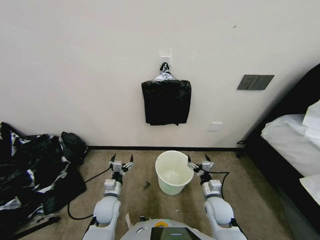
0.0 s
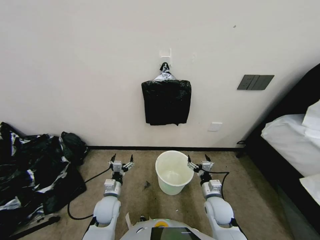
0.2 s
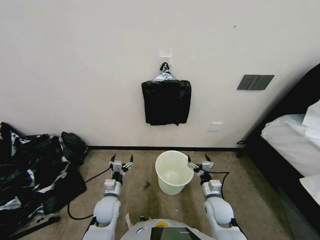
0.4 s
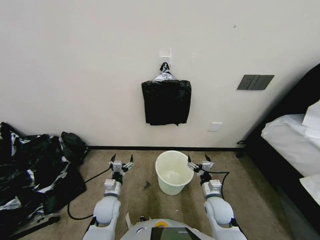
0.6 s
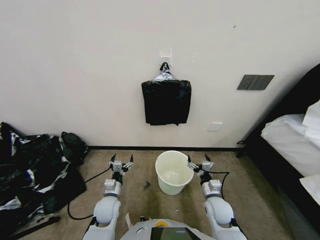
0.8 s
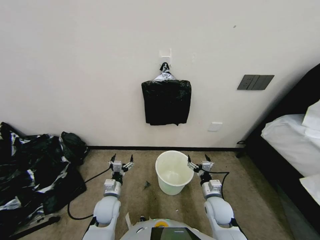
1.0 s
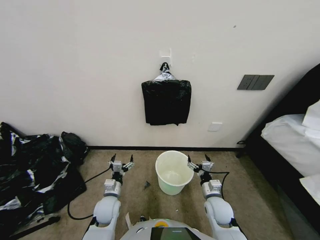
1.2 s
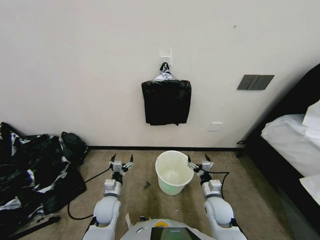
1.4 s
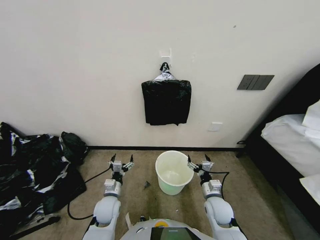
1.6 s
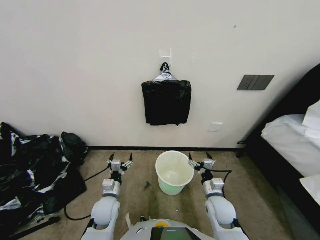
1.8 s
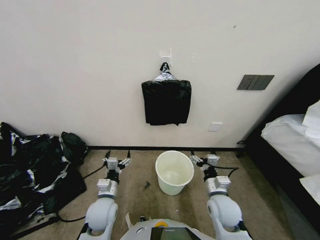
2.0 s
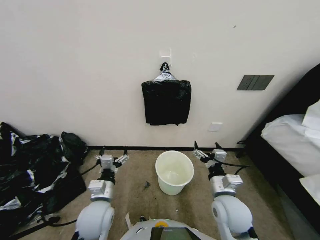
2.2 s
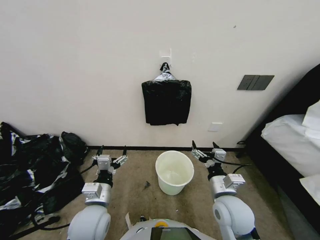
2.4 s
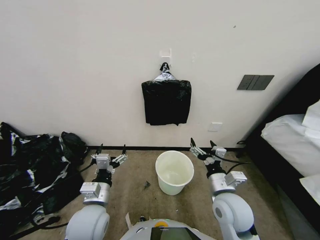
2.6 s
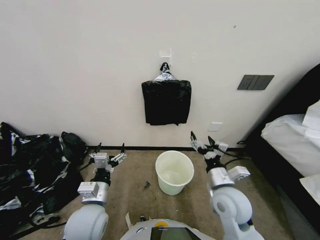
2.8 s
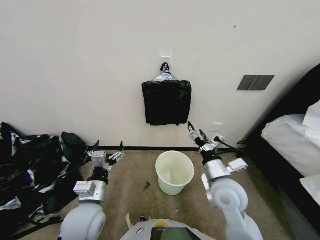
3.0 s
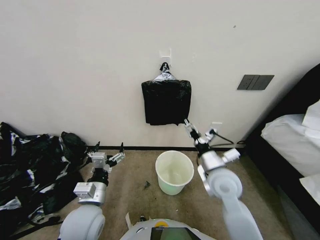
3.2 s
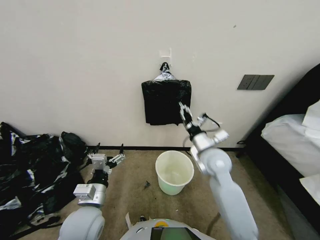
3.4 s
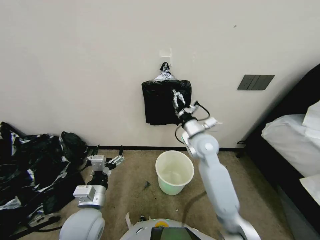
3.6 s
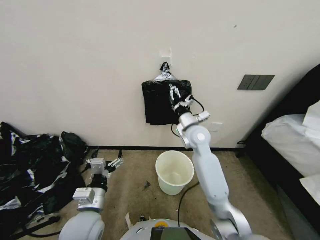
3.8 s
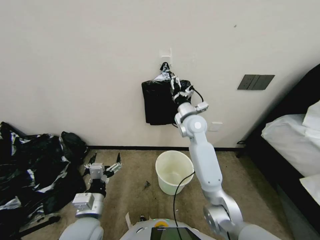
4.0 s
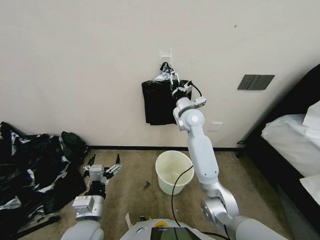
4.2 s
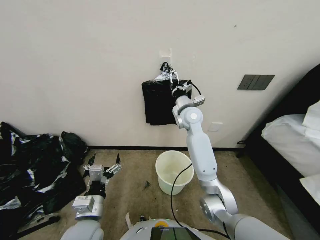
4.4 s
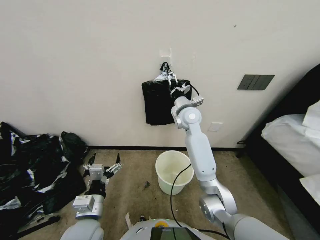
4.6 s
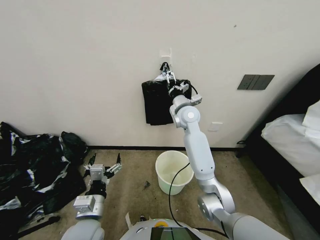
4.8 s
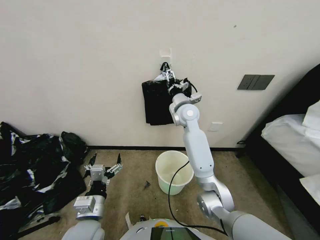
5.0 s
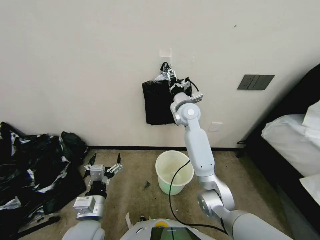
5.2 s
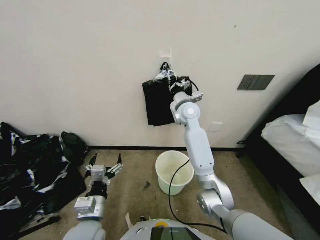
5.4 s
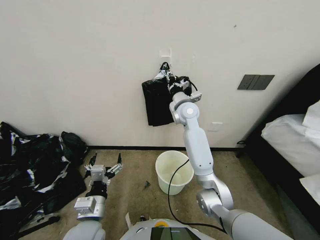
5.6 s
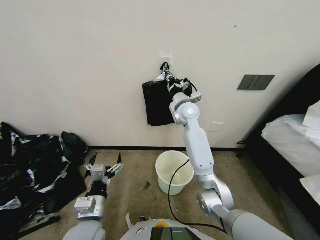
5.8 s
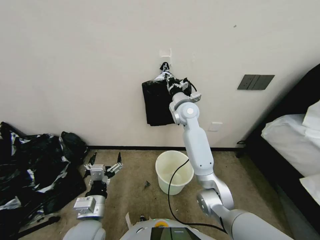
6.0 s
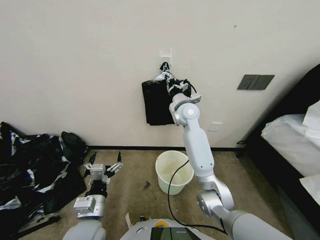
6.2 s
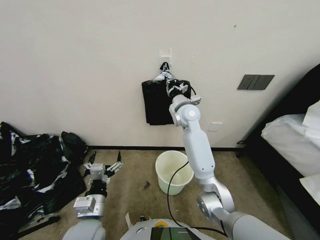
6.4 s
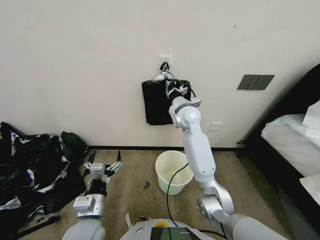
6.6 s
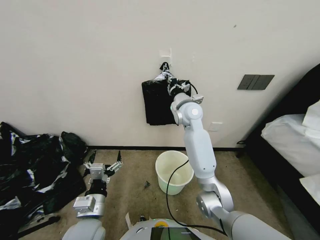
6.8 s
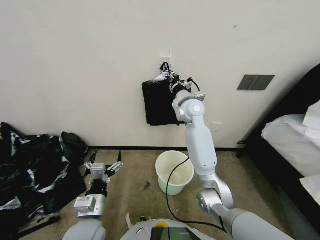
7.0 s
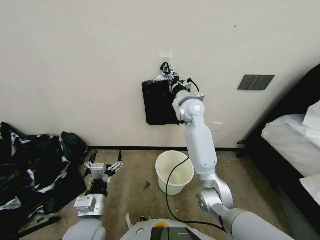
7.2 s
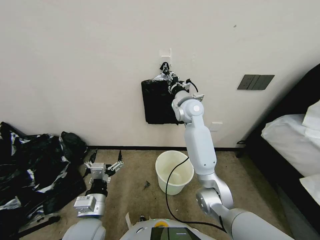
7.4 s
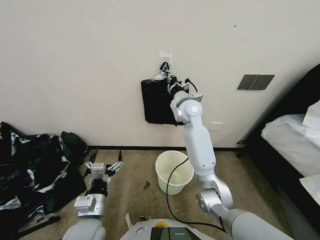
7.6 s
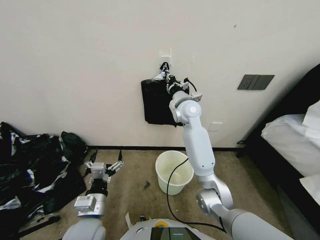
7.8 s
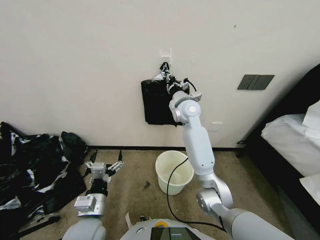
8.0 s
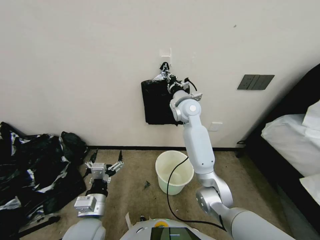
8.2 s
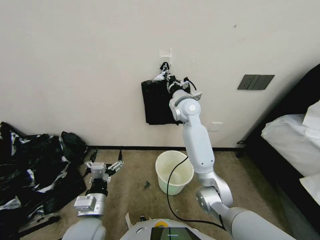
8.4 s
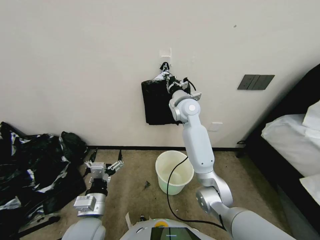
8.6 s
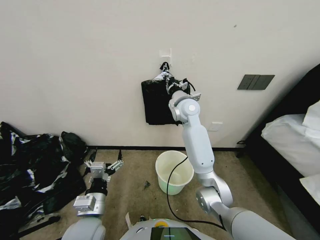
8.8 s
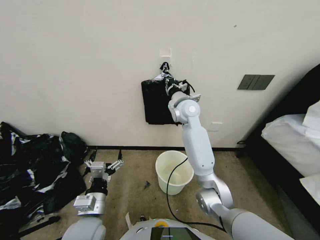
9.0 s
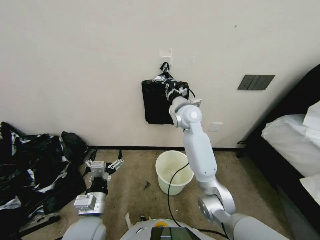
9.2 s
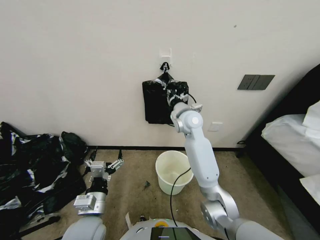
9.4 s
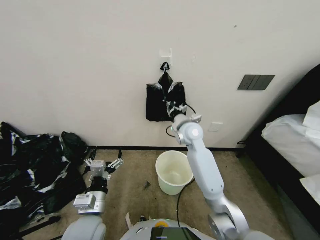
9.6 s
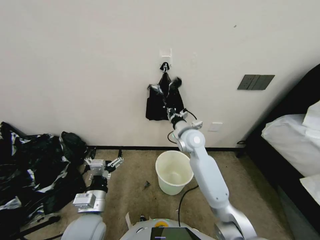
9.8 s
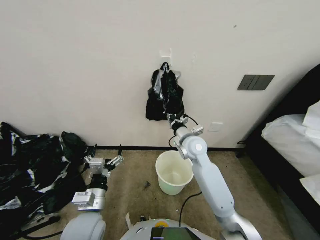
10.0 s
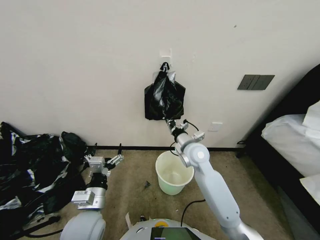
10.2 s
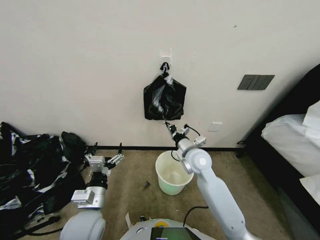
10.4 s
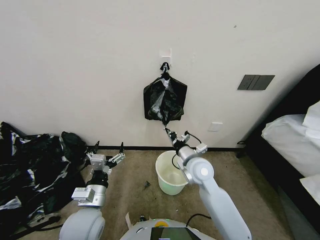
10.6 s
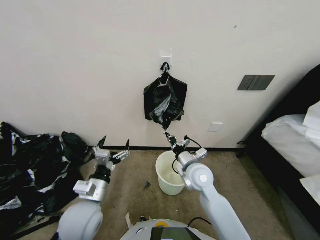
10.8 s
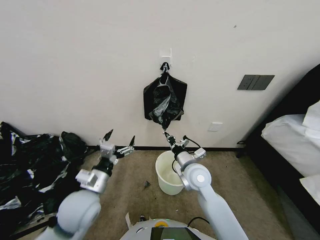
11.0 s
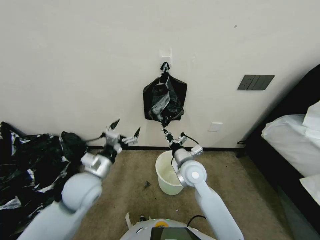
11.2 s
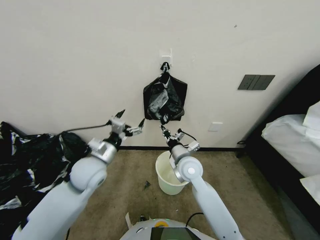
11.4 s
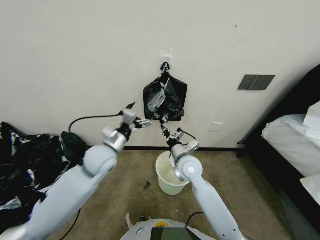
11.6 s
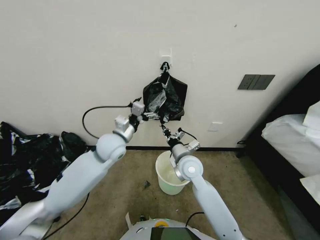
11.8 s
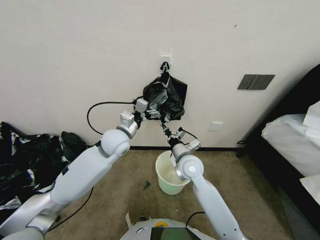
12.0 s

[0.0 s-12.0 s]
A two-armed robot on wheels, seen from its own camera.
Task of the whole recording: Place a trash bag onto the trash bin.
1.6 to 3.0 s: The grippers both shift upward by about 15 cm.
3.0 to 4.4 s: The right gripper heads forward and upward, covering approximately 30 cm.
4.4 to 6.0 s: The right gripper closes.
6.0 to 7.6 s: The grippers move only a little.
7.6 to 9.0 s: Both grippers stay about where they are.
9.0 to 10.4 s: The right gripper heads backward and downward, covering roughly 20 cm.
10.4 to 12.0 s: The left gripper goes approximately 25 cm forward and upward.

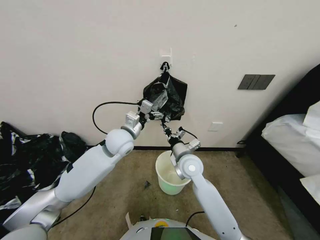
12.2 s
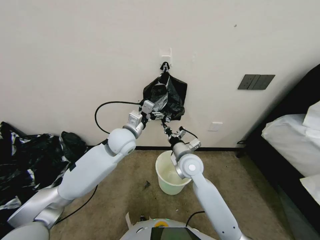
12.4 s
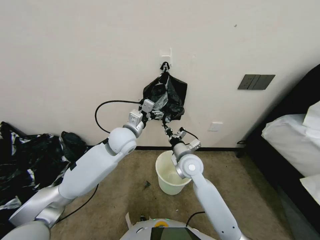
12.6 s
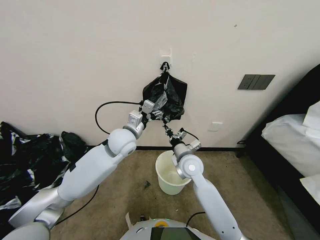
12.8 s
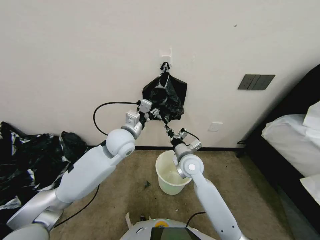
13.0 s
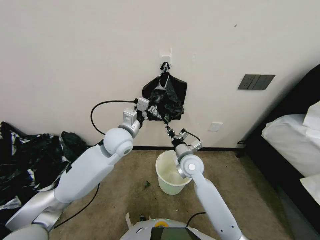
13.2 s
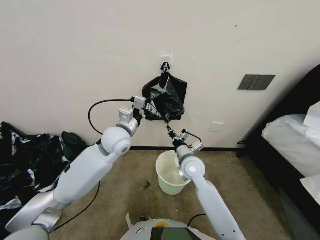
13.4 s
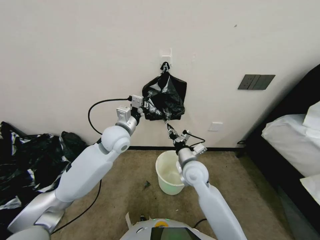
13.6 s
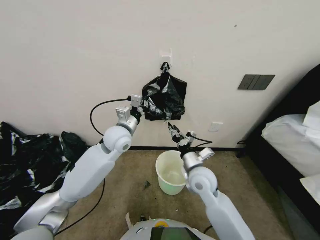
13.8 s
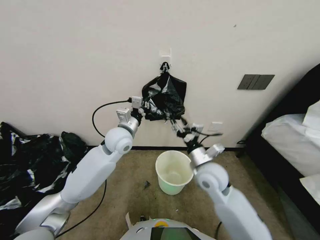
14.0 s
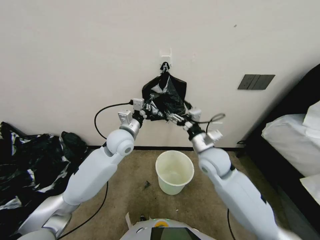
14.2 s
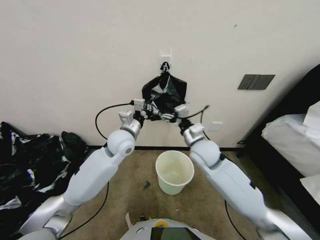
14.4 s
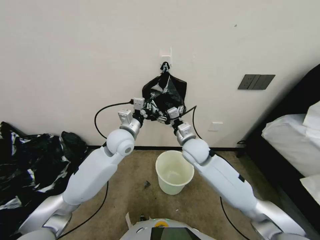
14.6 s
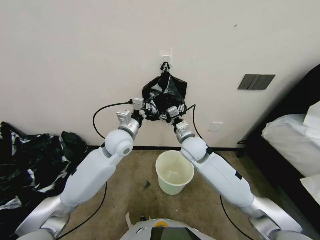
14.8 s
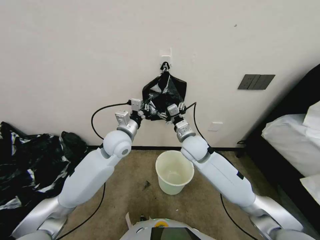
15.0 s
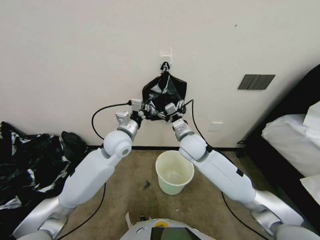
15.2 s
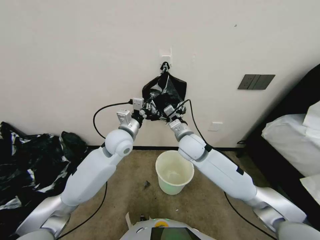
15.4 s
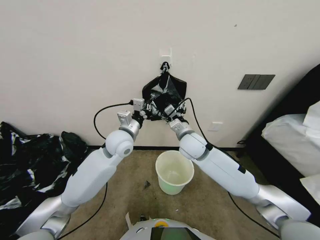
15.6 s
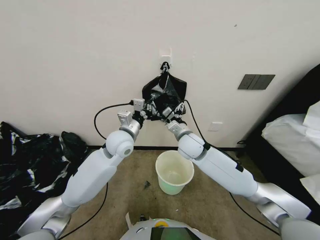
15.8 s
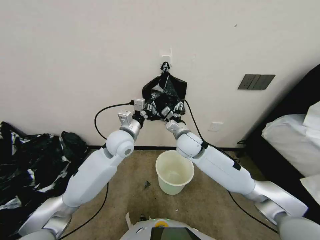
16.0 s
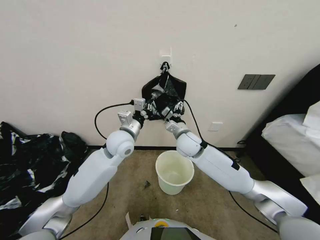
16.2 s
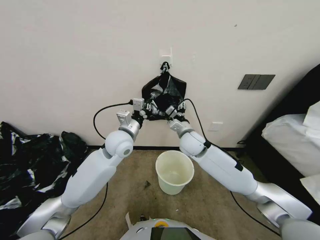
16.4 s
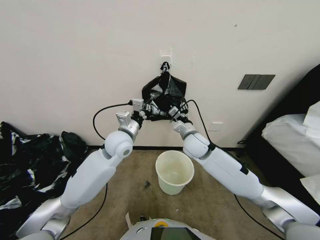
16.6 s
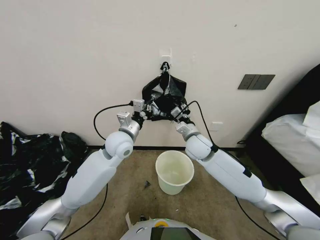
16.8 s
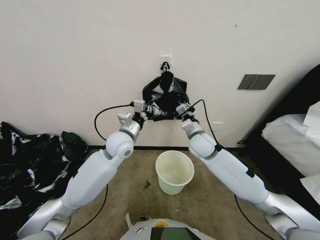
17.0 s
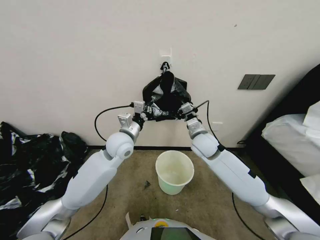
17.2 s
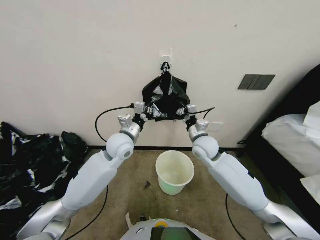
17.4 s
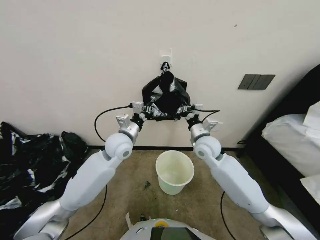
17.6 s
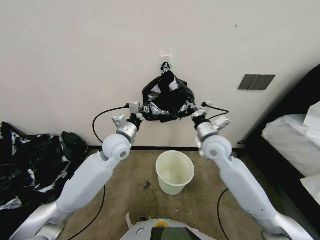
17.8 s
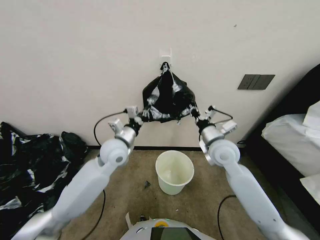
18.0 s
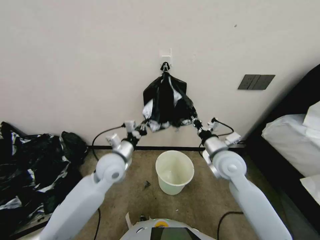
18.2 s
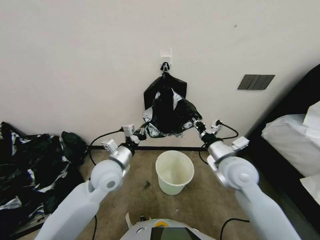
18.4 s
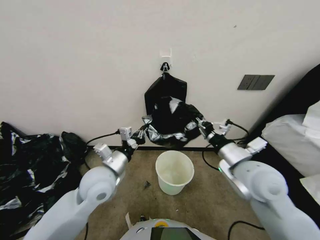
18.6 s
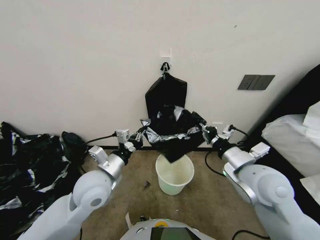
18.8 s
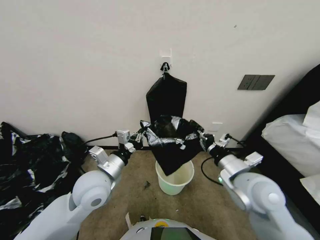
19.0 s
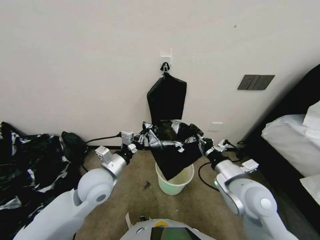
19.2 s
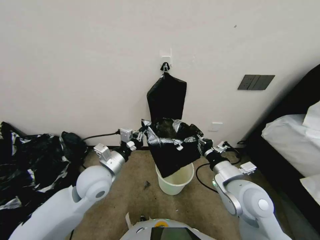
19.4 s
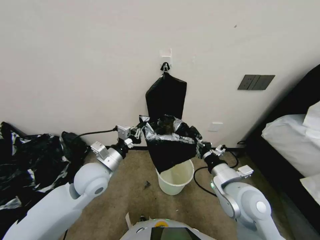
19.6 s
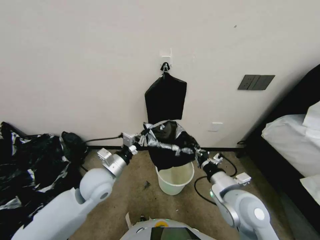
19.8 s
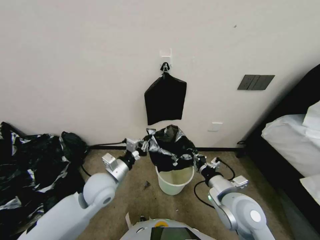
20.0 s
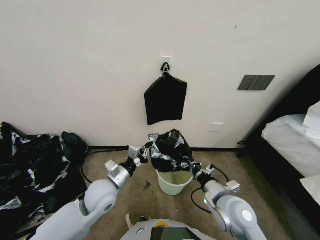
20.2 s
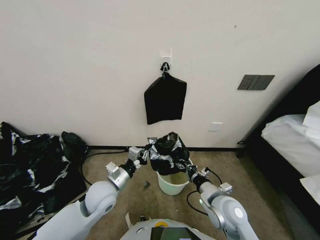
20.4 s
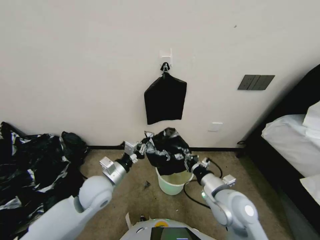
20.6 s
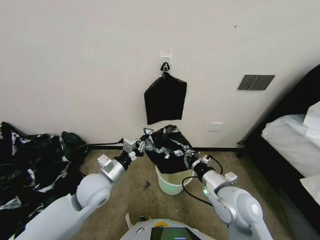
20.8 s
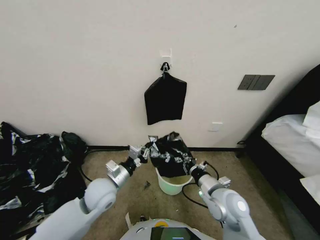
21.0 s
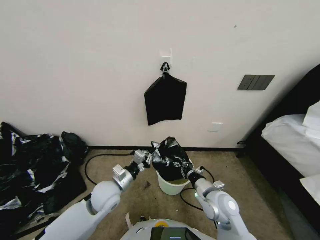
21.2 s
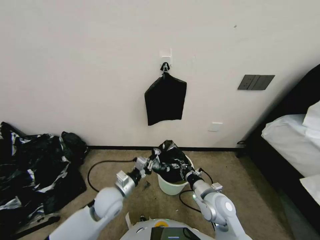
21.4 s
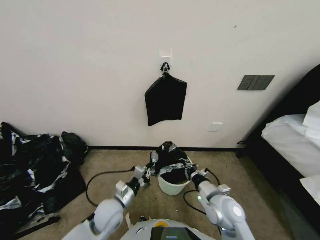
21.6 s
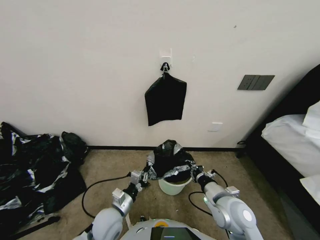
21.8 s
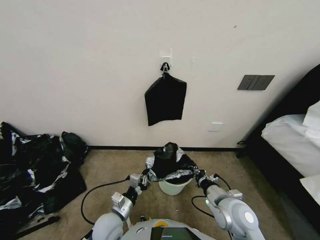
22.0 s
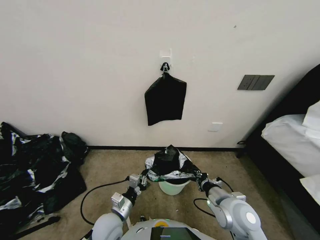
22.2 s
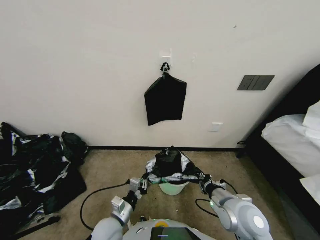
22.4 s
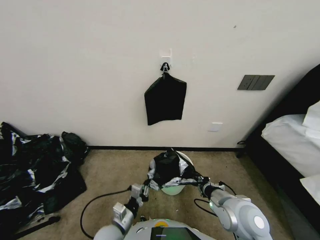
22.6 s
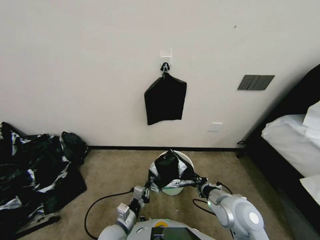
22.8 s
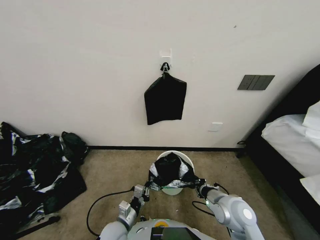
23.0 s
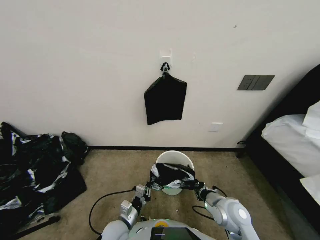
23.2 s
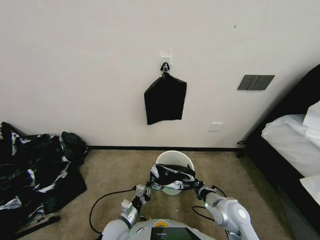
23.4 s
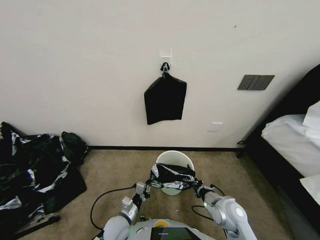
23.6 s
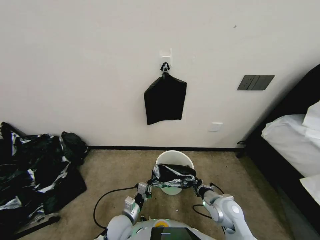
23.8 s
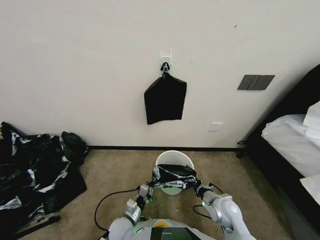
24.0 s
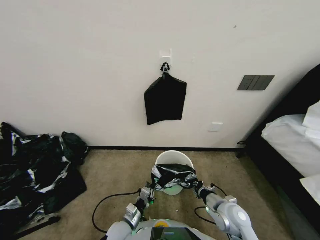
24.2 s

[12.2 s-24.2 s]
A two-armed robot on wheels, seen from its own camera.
Task of the whole recording: Place a trash bag onto the trash bin.
12.2 to 13.8 s: The left gripper closes.
13.8 to 15.2 s: The right gripper is displaced forward and upward by some 10 cm, and opens.
16.6 to 18.2 s: The right gripper shifts approximately 10 cm to the right and backward, and closes its fingers. The left gripper moves about 5 cm.
18.2 to 19.8 s: The left gripper goes approximately 5 cm backward; the right gripper shifts about 15 cm backward.
19.8 to 21.2 s: The right gripper swings up and down, about 5 cm each way, with 2 reversals. The left gripper is displaced downward by some 5 cm.
21.2 to 22.6 s: The left gripper moves backward and downward, roughly 15 cm, while the right gripper moves about 5 cm.
22.6 to 24.2 s: Both grippers travel together downward, approximately 10 cm.
